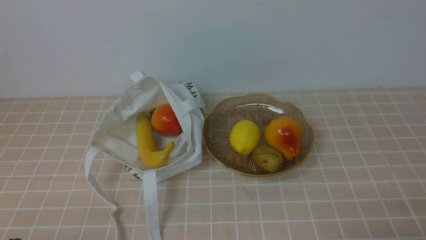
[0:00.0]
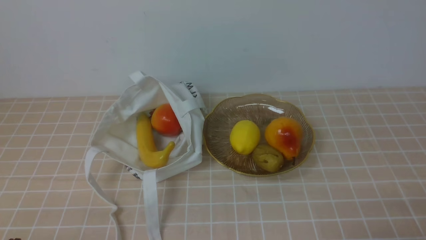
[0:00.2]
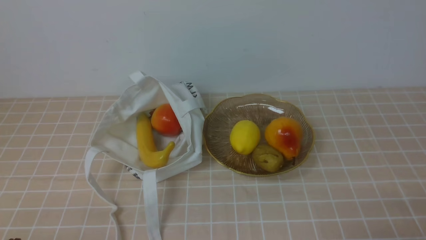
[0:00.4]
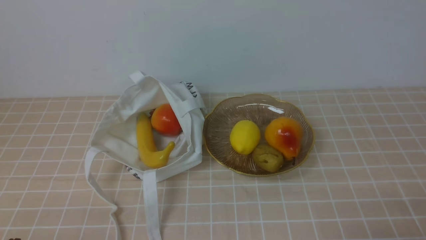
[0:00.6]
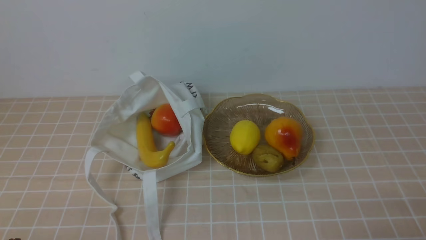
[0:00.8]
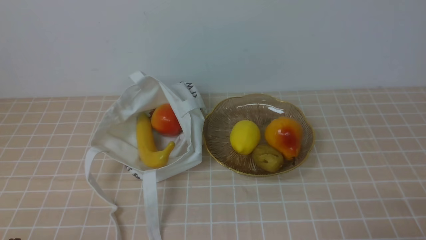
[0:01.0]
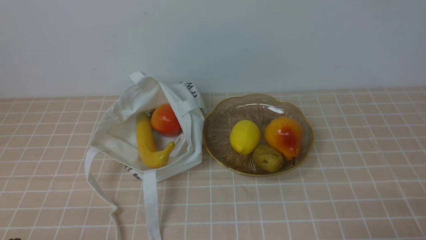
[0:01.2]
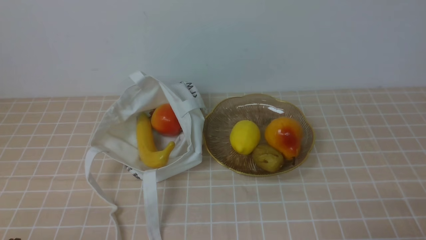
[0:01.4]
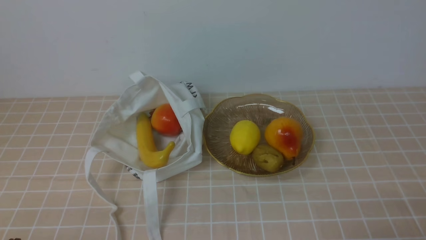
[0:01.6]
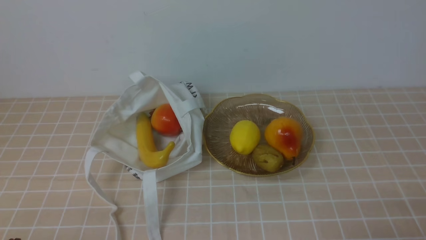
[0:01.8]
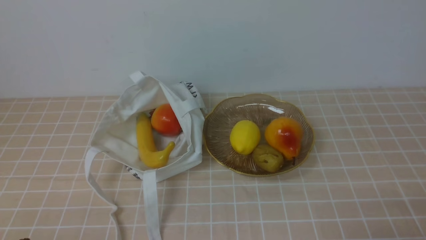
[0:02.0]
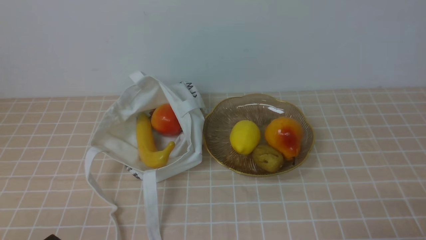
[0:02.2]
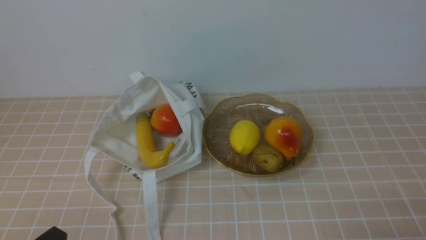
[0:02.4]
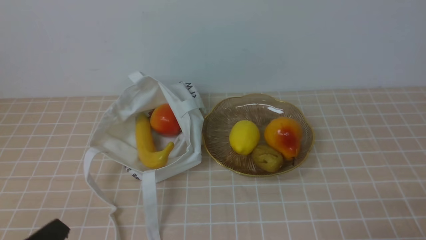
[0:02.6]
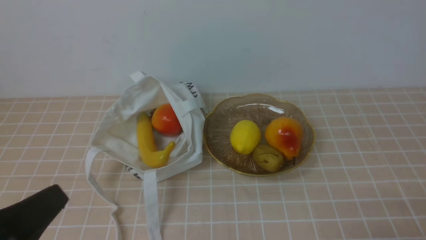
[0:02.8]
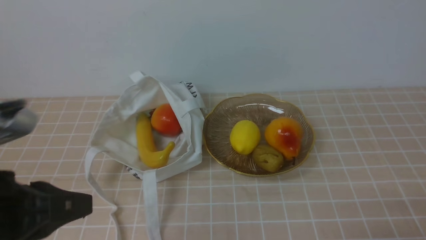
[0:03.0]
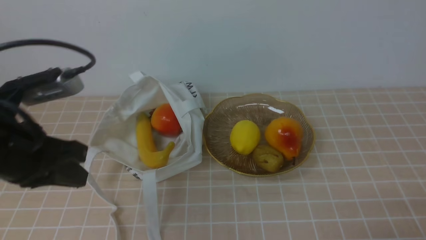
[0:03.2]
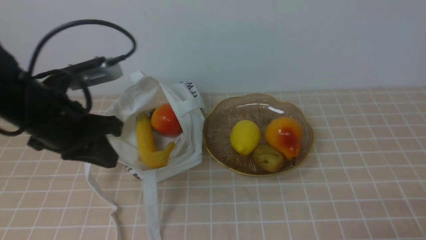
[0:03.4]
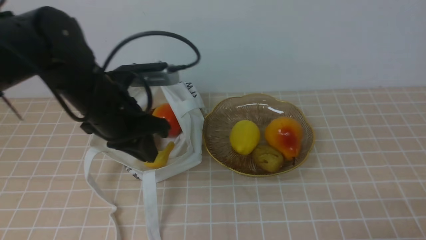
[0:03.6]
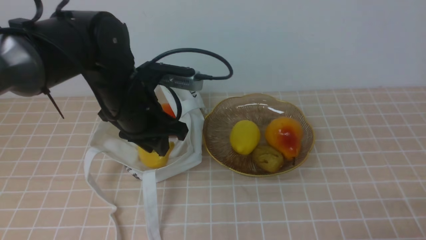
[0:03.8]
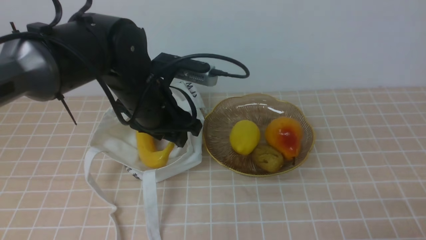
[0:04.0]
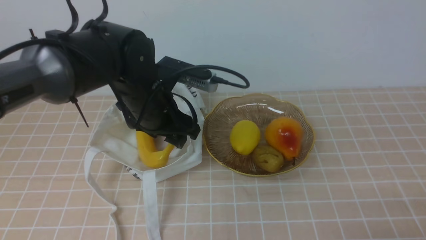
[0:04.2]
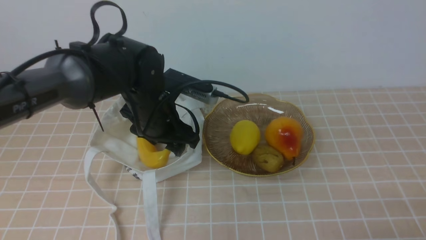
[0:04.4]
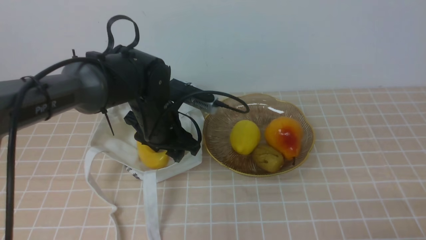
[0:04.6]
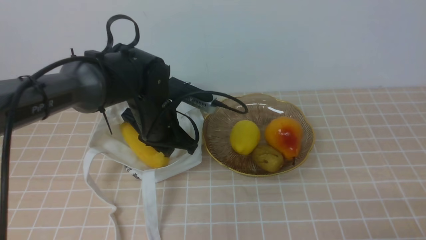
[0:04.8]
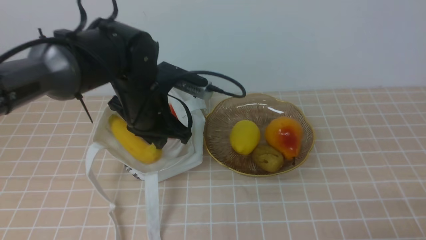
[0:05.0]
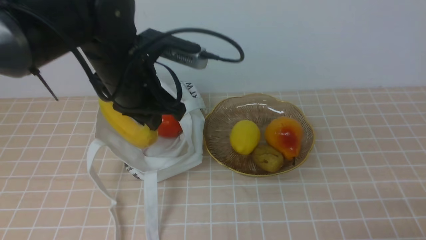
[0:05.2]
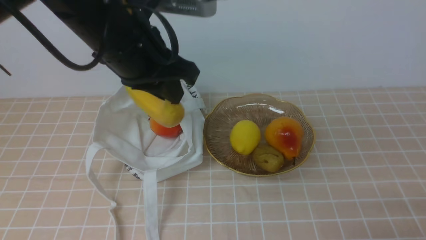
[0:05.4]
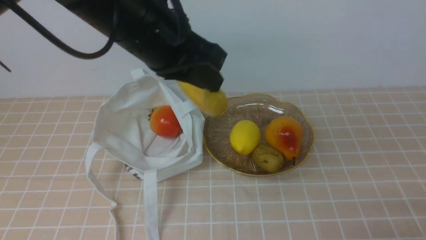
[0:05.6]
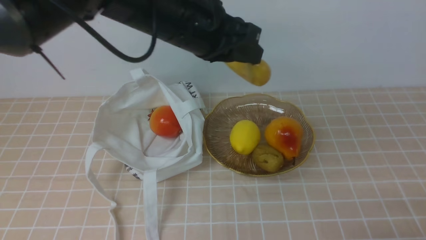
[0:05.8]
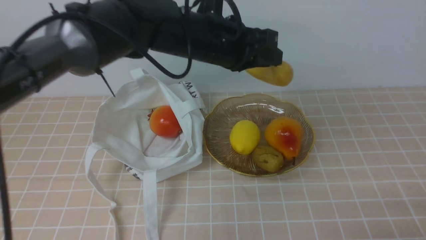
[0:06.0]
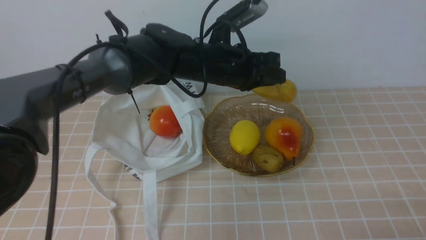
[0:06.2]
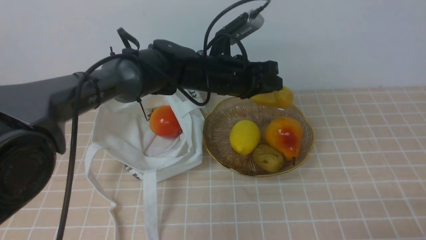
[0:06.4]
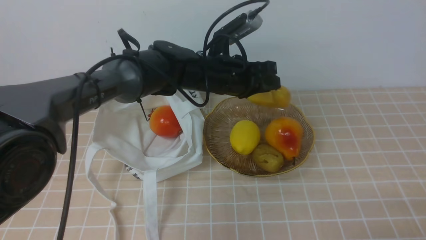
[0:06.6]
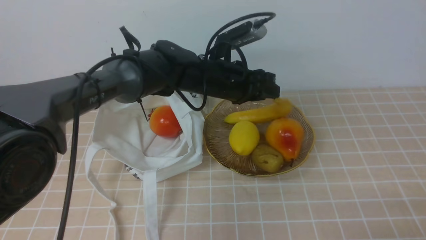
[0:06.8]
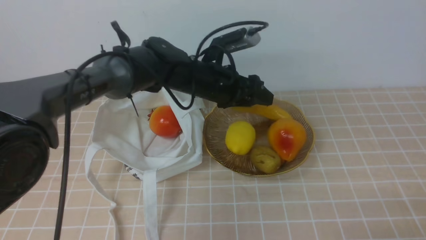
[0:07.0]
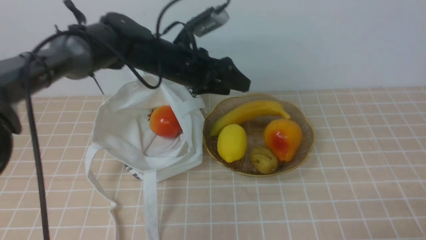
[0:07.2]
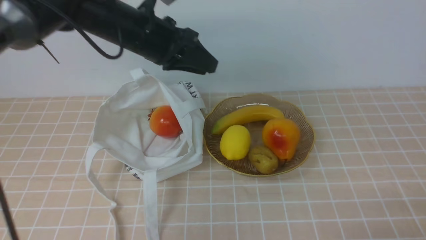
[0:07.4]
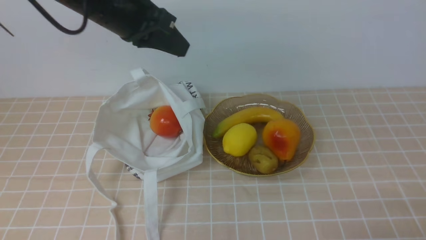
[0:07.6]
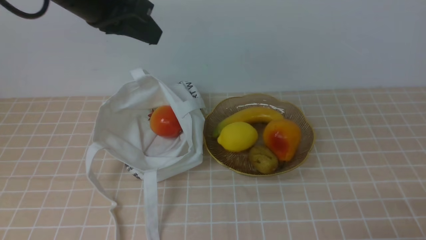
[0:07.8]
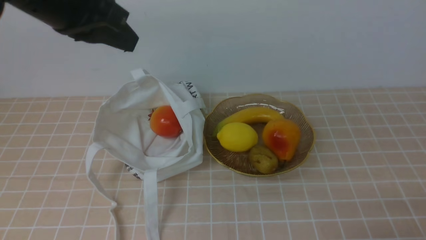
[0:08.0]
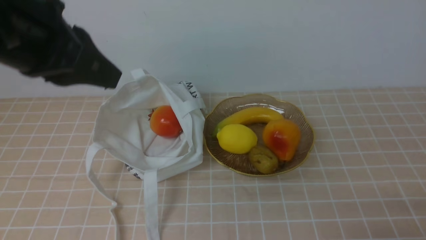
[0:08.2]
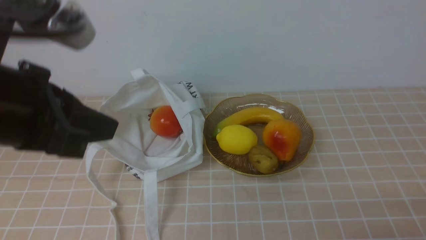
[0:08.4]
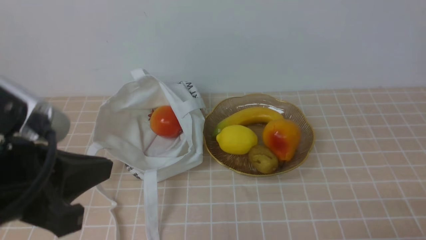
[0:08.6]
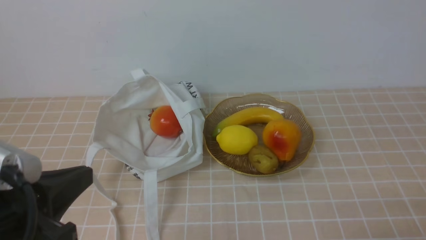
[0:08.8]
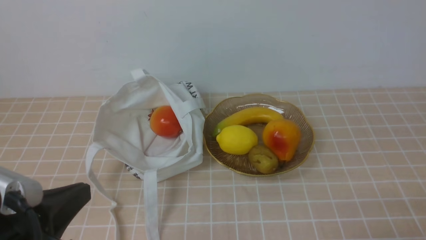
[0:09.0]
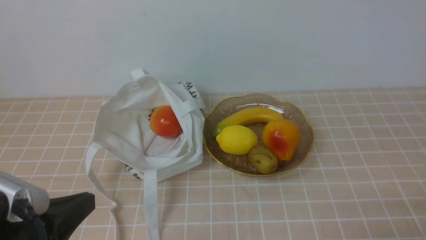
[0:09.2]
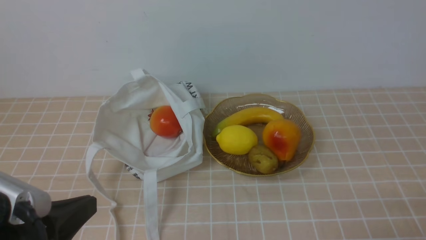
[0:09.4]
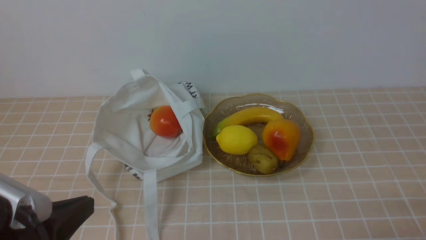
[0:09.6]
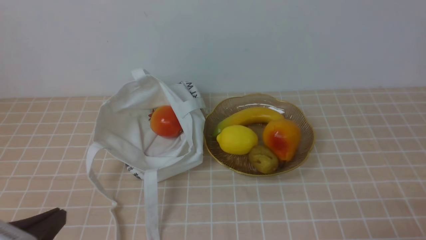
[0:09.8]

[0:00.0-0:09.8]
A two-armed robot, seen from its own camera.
Step, 0:00.0 to 0:05.2: use the left arm to grab a banana from the bag.
Step, 0:05.4 to 0:07.0: use the left arm to put the banana into the empty plate on the right.
0:01.4 to 0:02.8: The left gripper heads upward, covering approximately 10 cm.
0:02.8 to 0:04.2: The left gripper travels forward and to the right by approximately 30 cm, and opens its fingers.
0:04.2 to 0:05.6: The left gripper is displaced upward by some 10 cm, and closes.
0:05.6 to 0:07.0: The left gripper heads downward, forward and to the right, covering some 20 cm, and opens.
0:07.0 to 0:08.4: The left gripper travels backward, upward and to the left by roughly 30 cm, and closes up.
0:08.4 to 0:09.8: The left gripper is displaced downward and backward by approximately 20 cm.

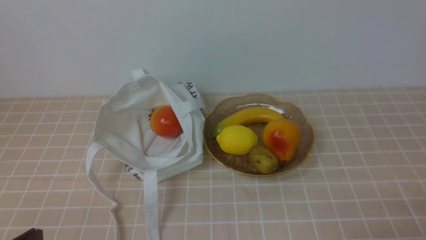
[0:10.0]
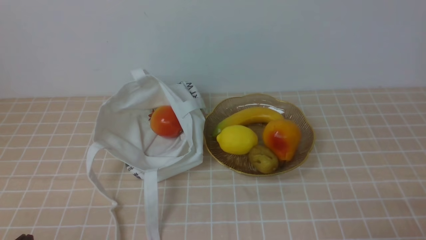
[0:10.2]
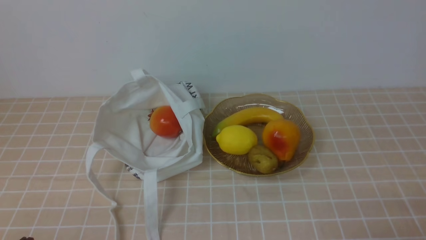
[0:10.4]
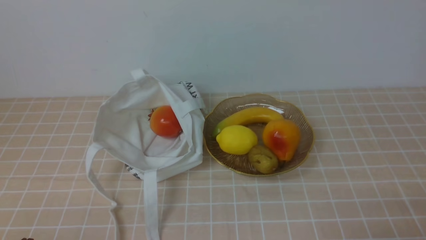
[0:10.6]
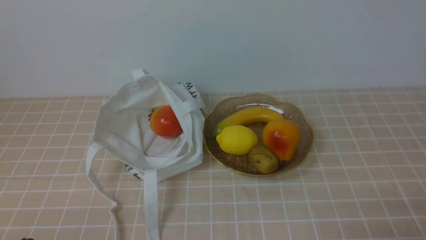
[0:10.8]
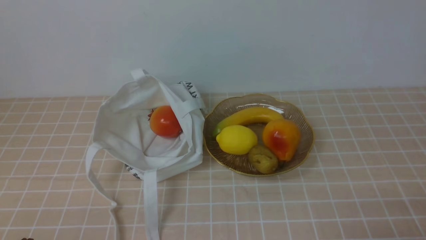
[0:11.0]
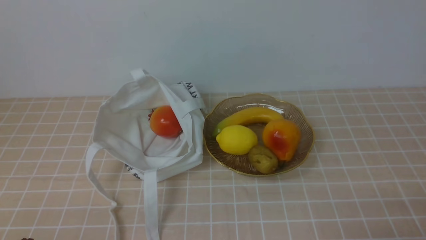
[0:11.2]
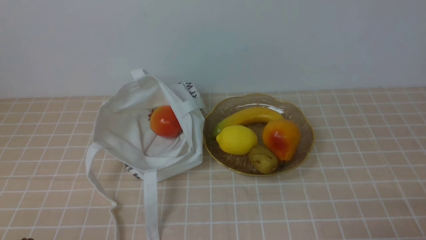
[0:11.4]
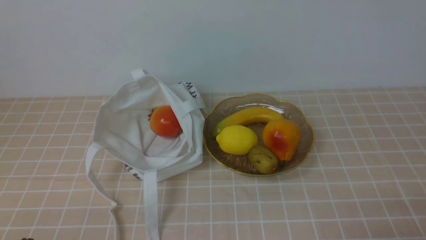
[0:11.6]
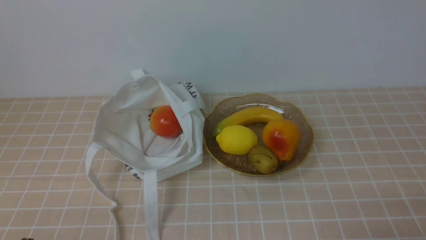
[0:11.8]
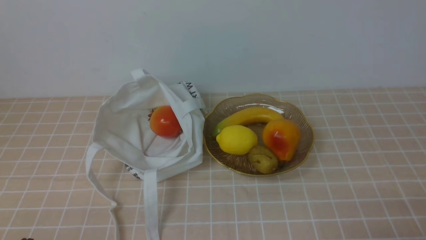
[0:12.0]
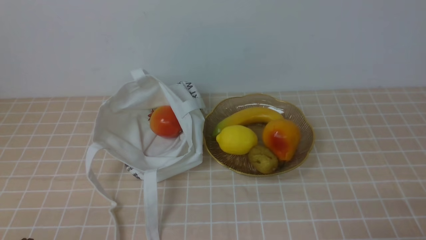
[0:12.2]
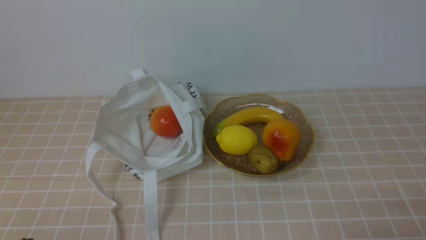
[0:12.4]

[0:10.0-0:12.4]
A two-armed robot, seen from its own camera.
0:11.2 to 0:12.4: Both grippers stay about where they are.

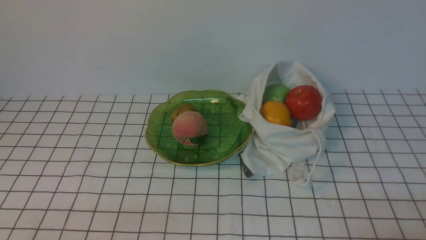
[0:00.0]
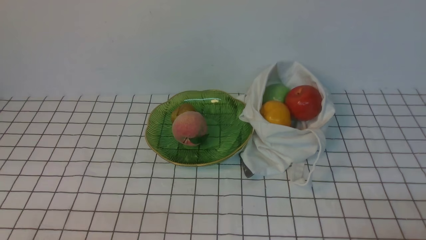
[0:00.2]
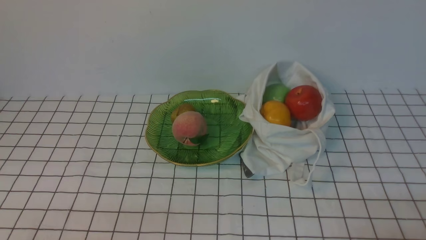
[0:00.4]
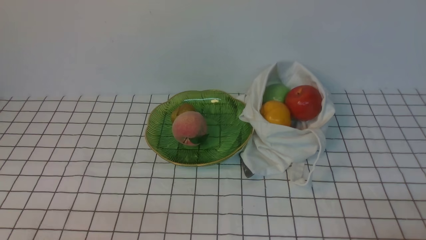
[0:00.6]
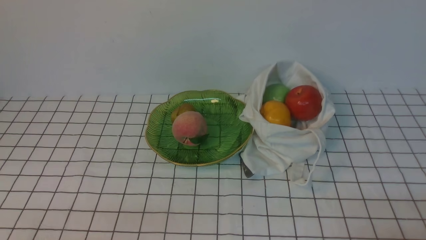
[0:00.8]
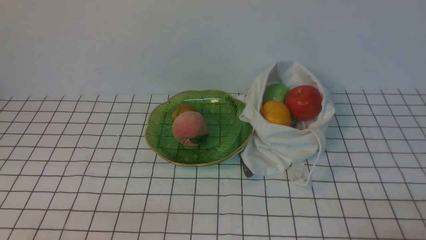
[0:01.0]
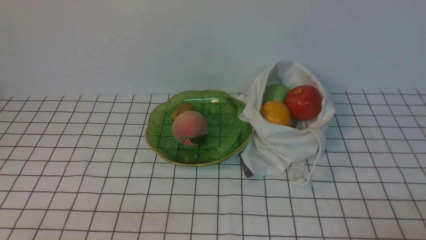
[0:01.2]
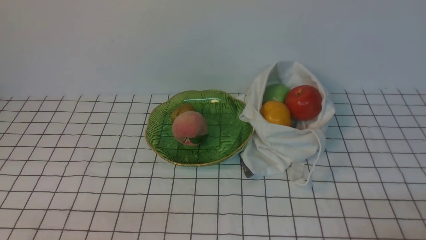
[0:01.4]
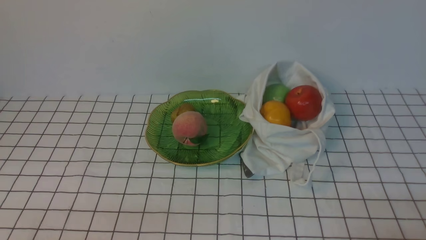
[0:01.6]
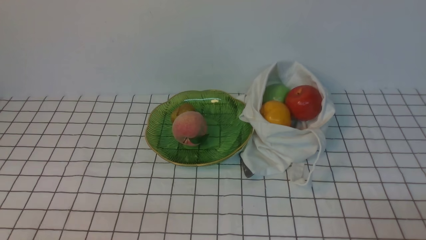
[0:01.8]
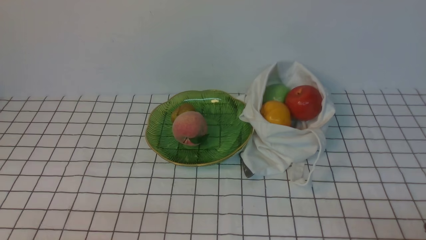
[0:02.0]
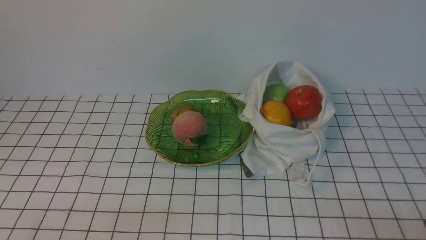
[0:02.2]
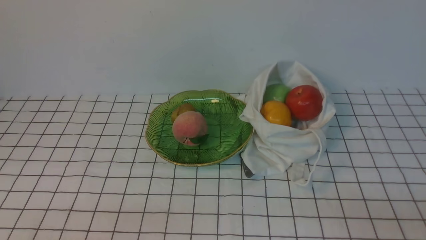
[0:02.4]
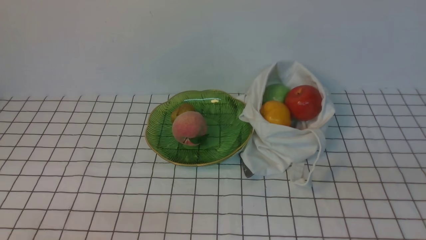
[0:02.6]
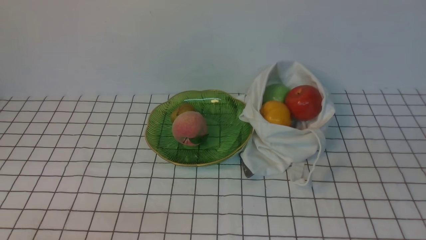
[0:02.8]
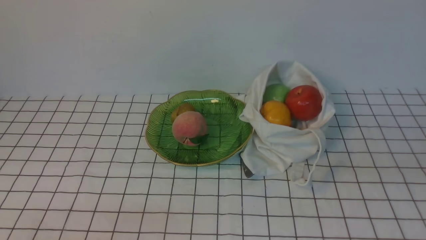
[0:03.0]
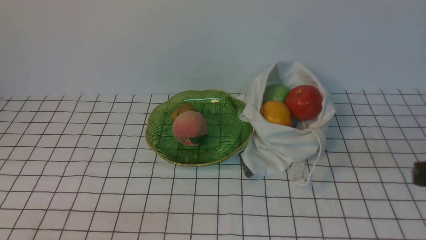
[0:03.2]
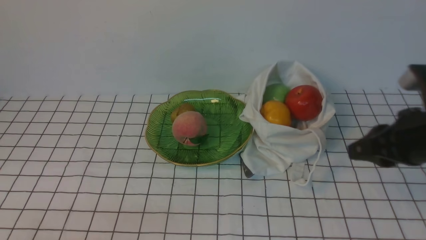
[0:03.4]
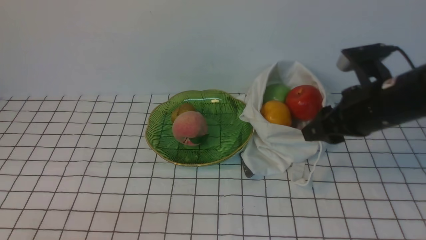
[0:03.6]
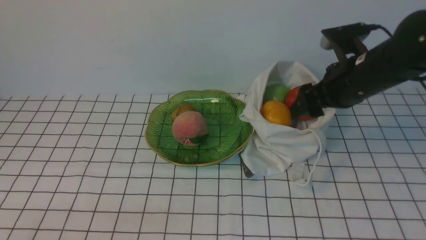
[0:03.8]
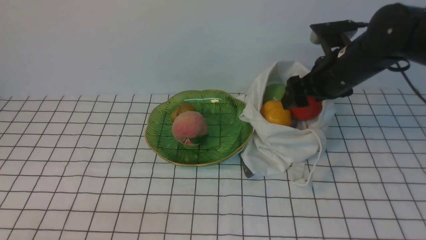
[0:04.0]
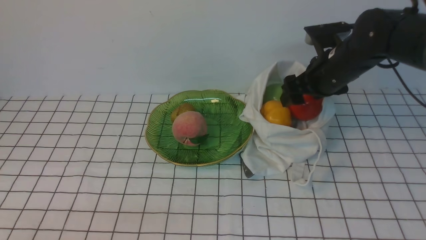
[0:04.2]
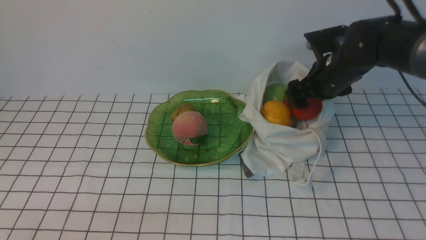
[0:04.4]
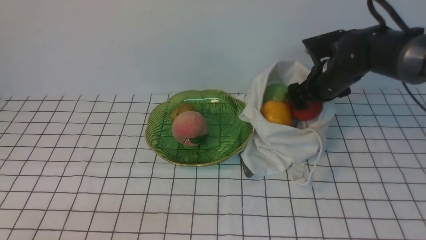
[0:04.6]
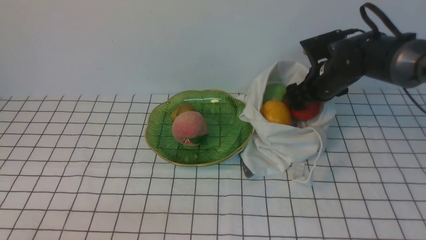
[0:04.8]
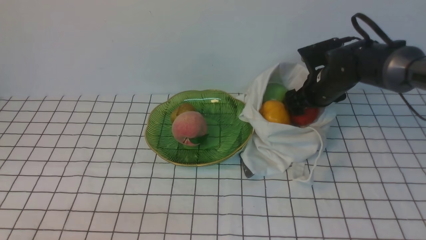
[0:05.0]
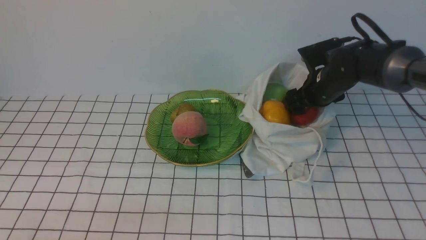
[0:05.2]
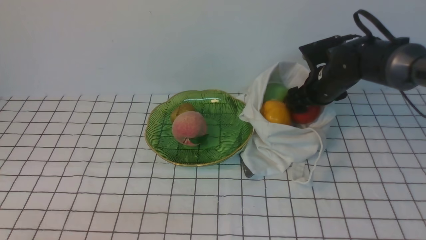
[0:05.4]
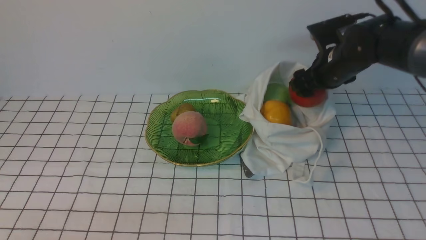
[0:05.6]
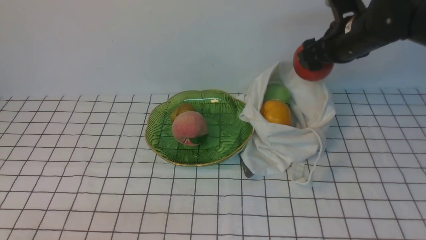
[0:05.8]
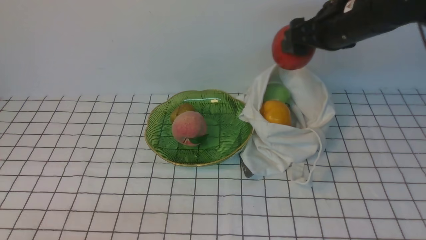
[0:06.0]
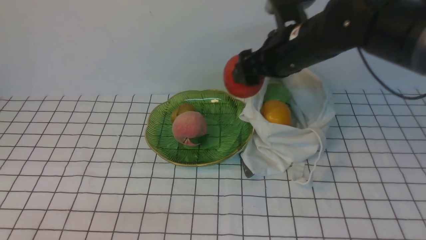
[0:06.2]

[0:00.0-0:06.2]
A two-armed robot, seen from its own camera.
Step, 0:00.0 to 0:05.4: use the right arm to grab an apple from the bag.
0:03.2 to 0:04.6: The right gripper moves forward, about 30 cm, and opens up.
0:04.6 to 0:06.2: The right gripper shifts some 10 cm upward and to the left.
